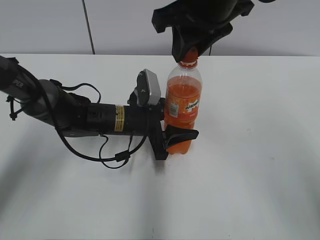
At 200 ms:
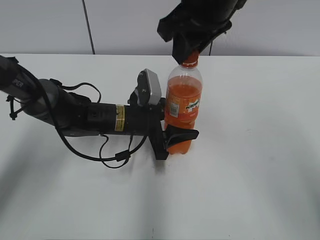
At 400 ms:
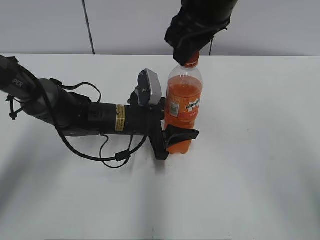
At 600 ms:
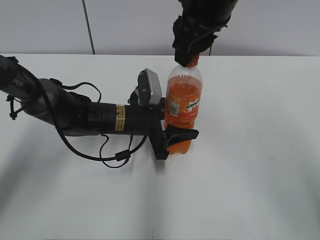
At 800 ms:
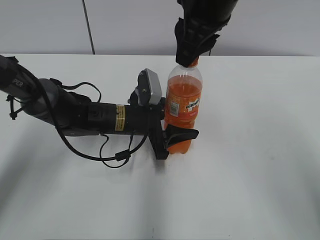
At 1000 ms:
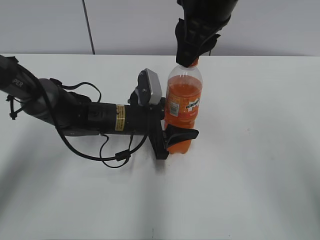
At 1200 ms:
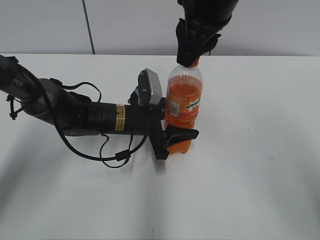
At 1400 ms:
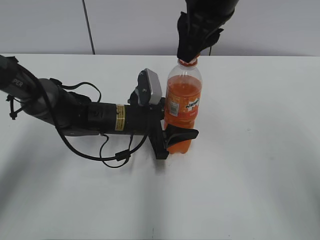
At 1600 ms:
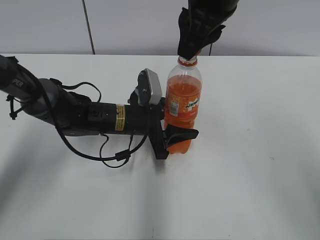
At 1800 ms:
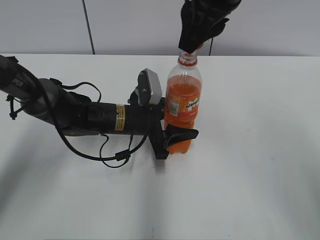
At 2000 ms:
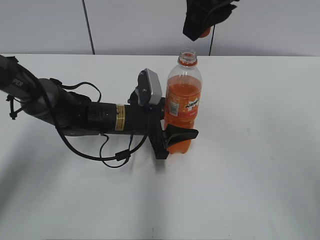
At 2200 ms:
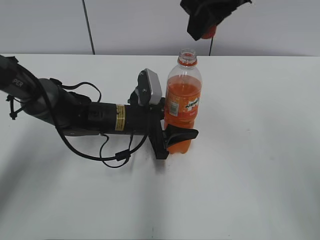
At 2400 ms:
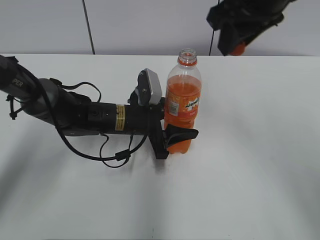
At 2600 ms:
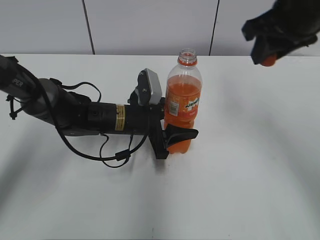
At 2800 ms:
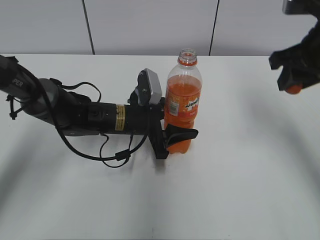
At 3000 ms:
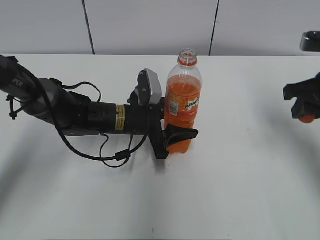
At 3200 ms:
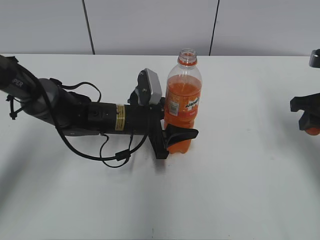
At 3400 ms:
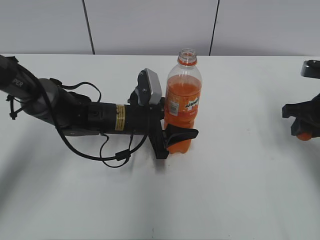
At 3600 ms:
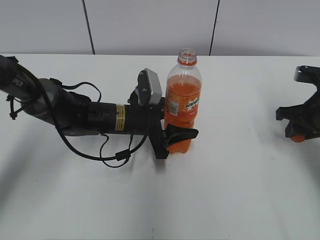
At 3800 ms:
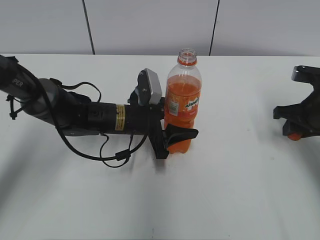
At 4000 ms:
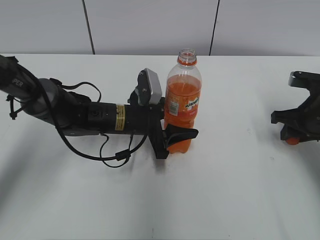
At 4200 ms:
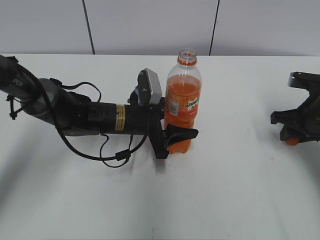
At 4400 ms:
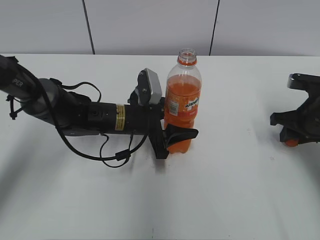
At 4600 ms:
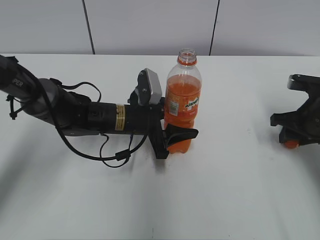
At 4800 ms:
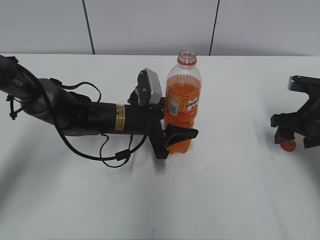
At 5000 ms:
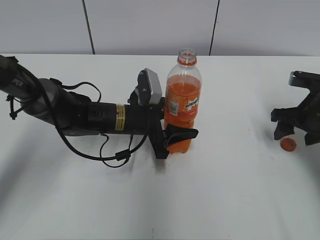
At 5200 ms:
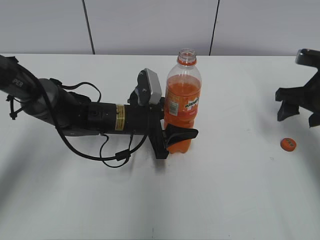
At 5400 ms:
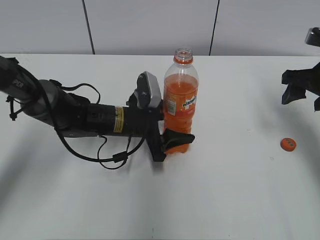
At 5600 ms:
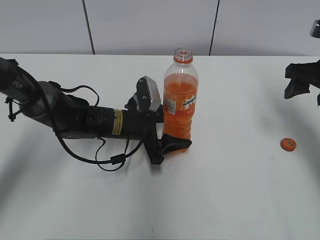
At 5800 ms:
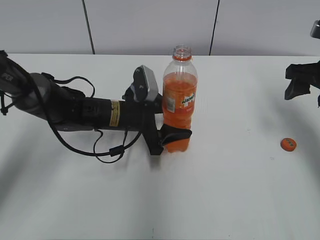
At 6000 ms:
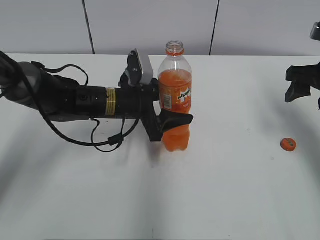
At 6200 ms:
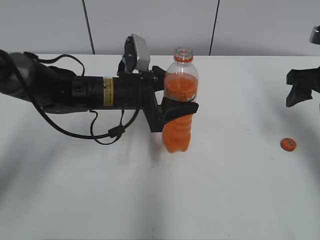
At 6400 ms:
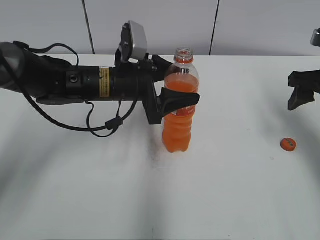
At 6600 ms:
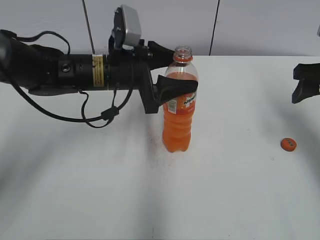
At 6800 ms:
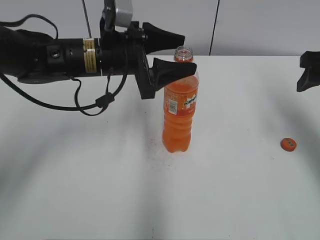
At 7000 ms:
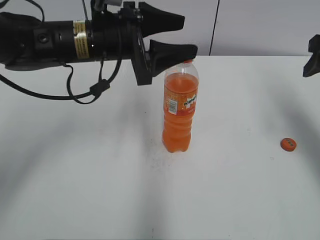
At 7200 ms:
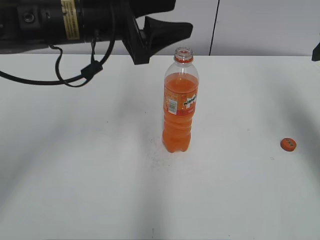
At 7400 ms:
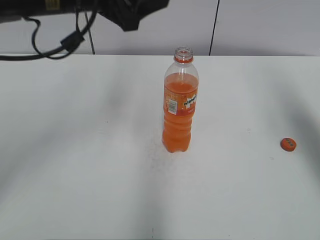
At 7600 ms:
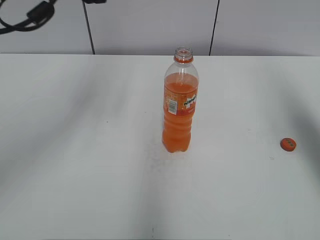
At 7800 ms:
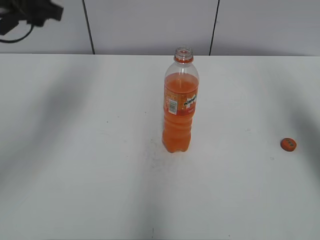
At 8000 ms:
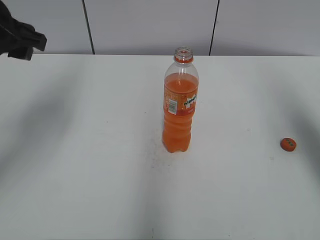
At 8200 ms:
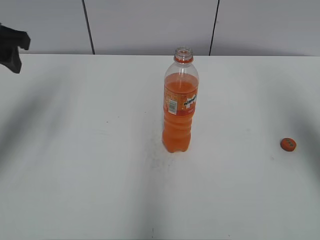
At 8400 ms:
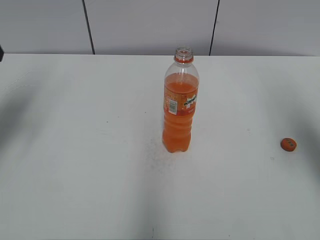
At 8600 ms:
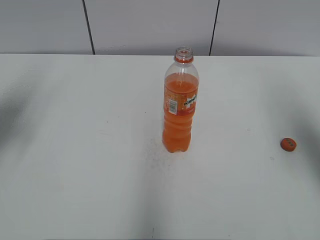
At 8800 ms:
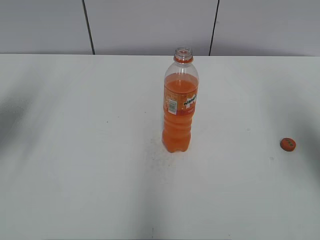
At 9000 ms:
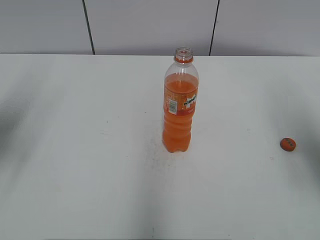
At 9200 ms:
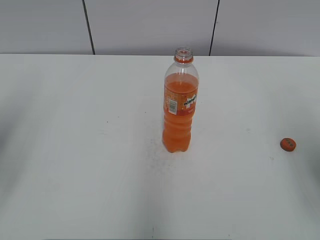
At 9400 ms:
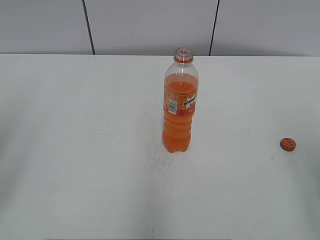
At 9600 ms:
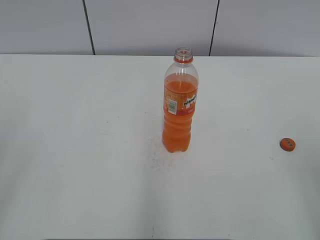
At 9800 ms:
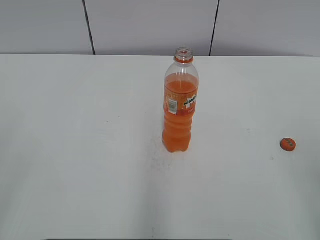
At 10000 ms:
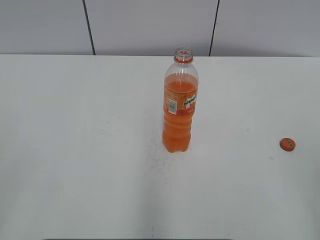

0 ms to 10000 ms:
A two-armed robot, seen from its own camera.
Step, 1800 ms to 4800 ms: Place the bottle cap on the right.
1400 ms to 2800 ms: The right gripper heads to the right and downward, covering roughly 20 cm.
2800 ms to 4200 ms: The right gripper moves downward and to the right, some 15 cm.
4200 ms to 5800 ms: The right gripper shifts roughly 10 cm upward, and opens up, while the left gripper opens up.
5800 ms to 7200 ms: The left gripper is displaced upward by about 20 cm, while the right gripper goes approximately 10 cm upward.
7200 ms to 8600 ms: The left gripper heads to the left, covering roughly 25 cm. Meanwhile the right gripper is displaced backward by about 5 cm.
8600 ms to 10000 ms: The two grippers go roughly 25 cm backward.

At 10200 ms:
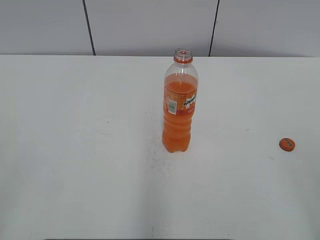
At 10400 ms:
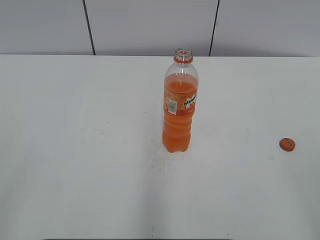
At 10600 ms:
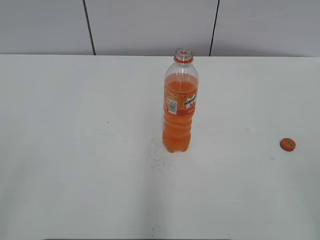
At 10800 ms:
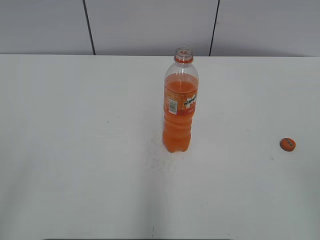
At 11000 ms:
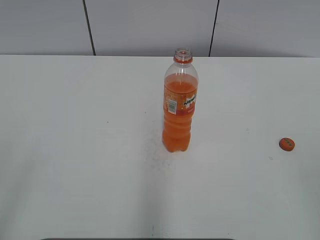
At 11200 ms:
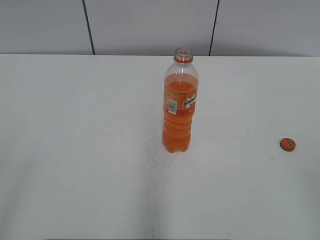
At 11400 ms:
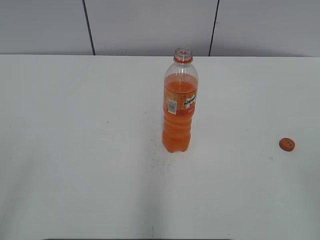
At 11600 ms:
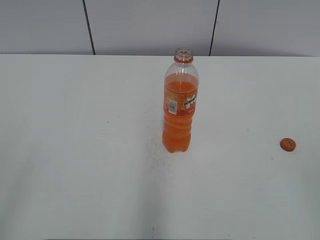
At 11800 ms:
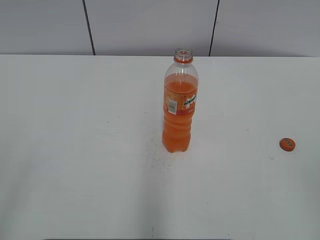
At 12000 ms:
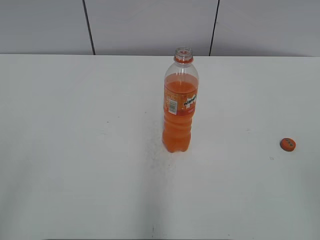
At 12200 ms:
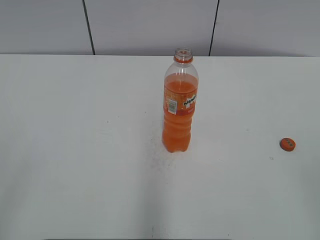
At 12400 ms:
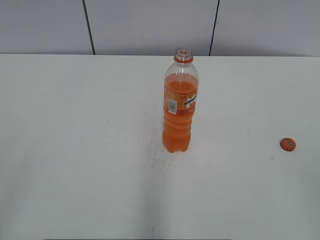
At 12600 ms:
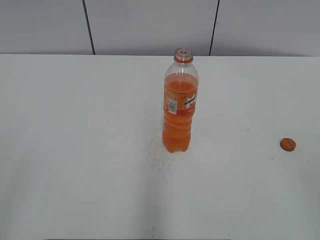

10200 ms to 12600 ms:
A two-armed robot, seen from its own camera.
11400 ms to 12600 ms: The two grippers keep their place.
